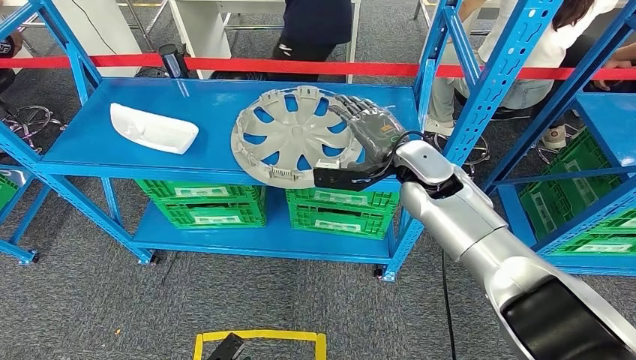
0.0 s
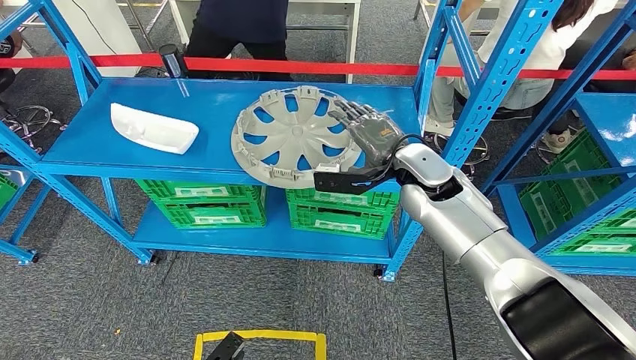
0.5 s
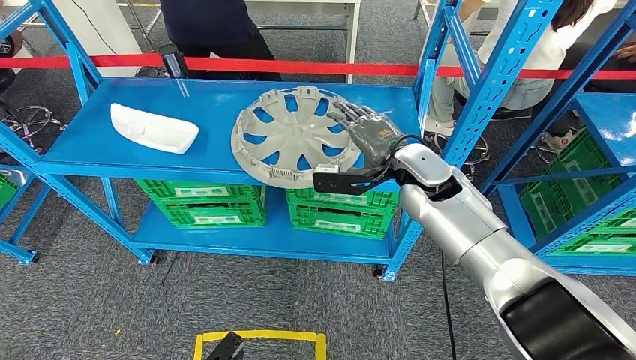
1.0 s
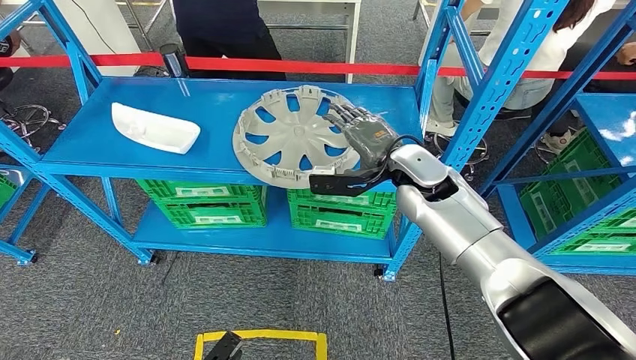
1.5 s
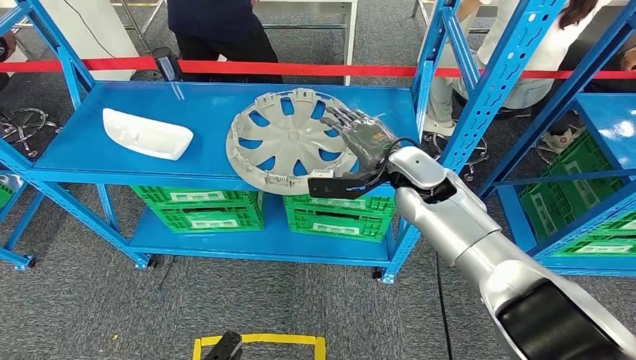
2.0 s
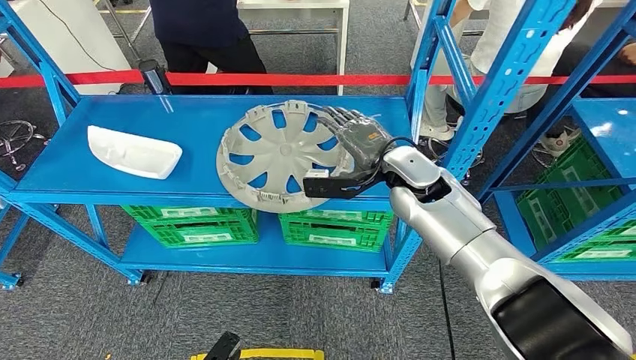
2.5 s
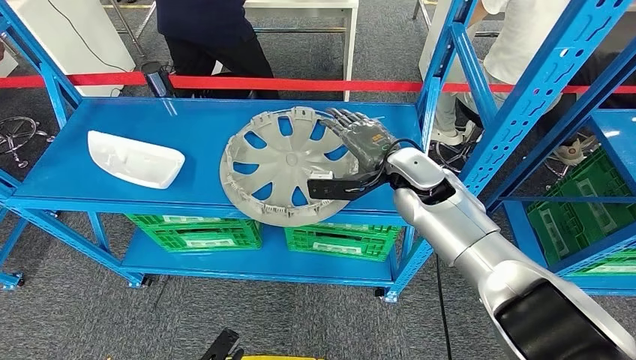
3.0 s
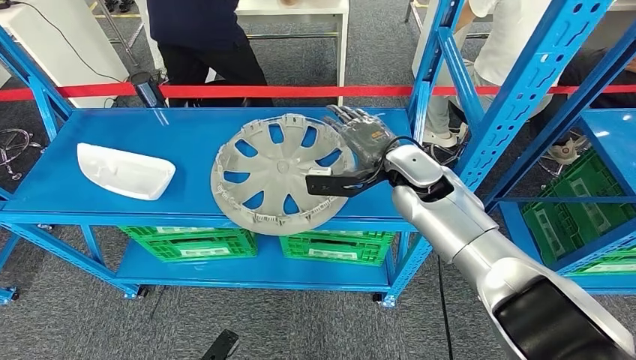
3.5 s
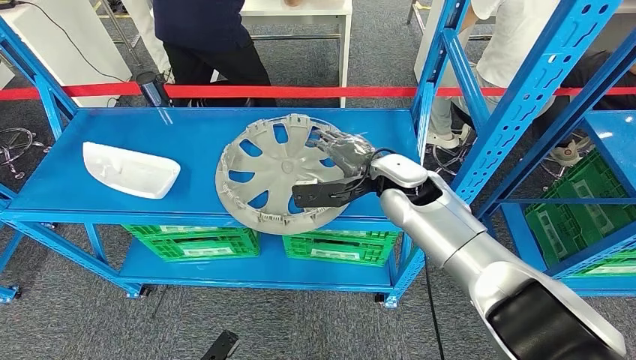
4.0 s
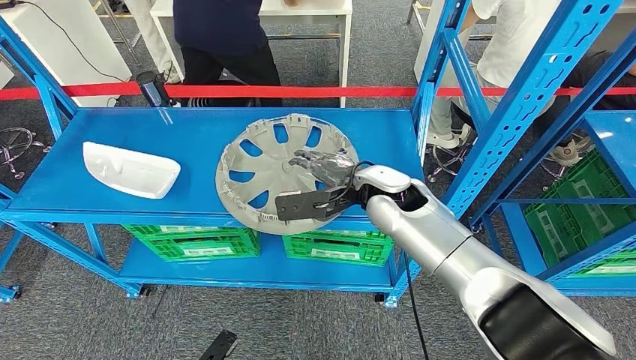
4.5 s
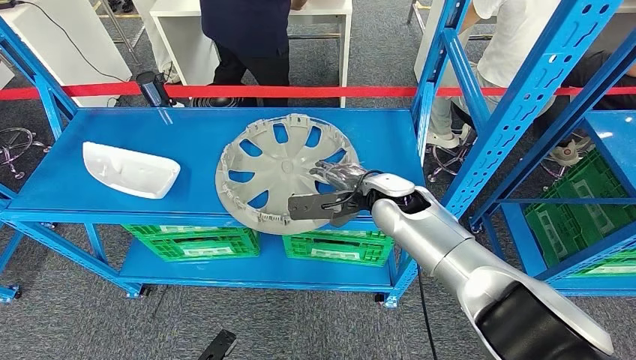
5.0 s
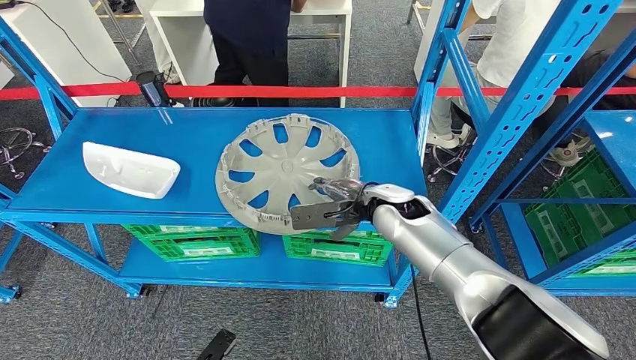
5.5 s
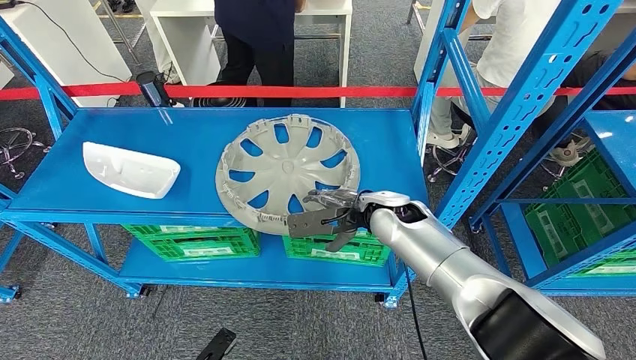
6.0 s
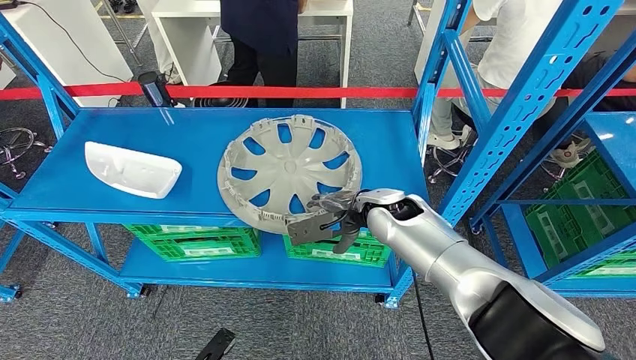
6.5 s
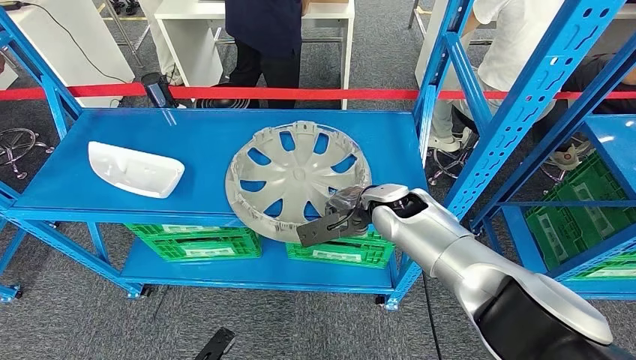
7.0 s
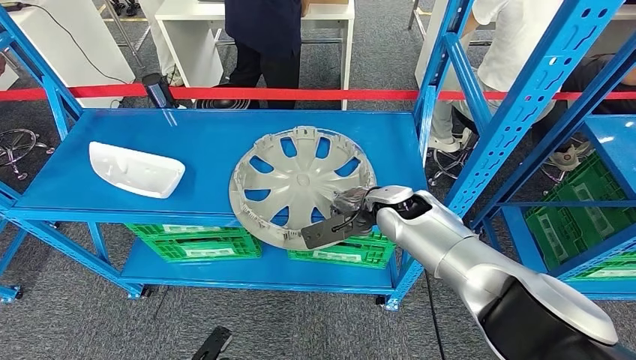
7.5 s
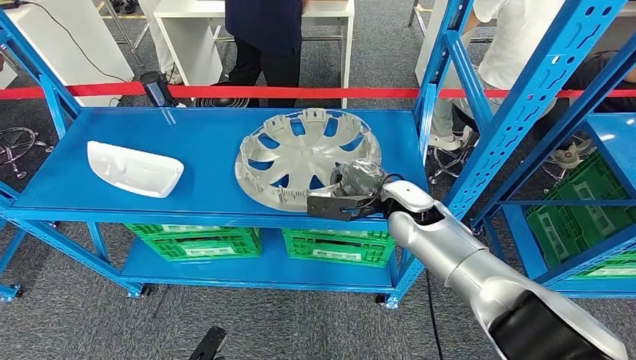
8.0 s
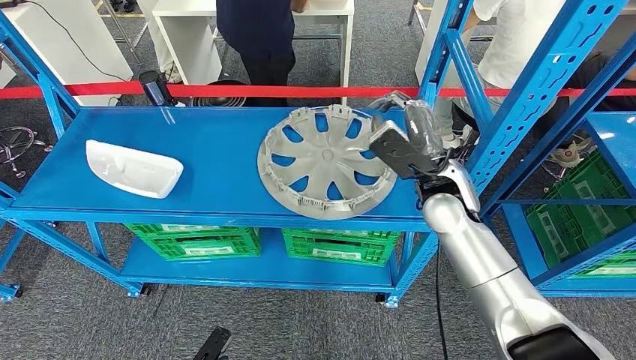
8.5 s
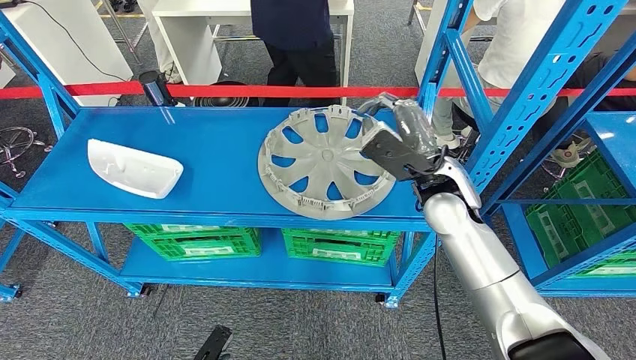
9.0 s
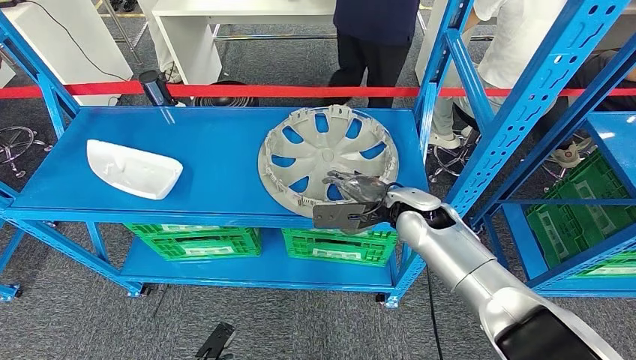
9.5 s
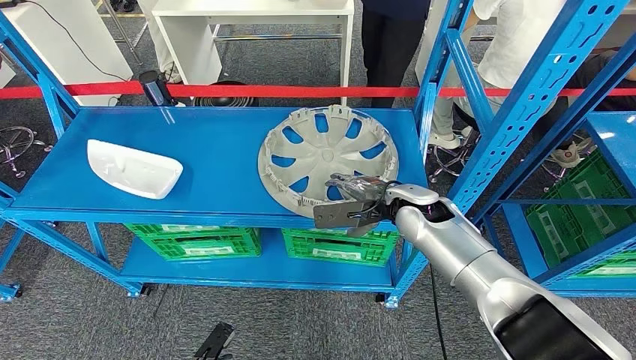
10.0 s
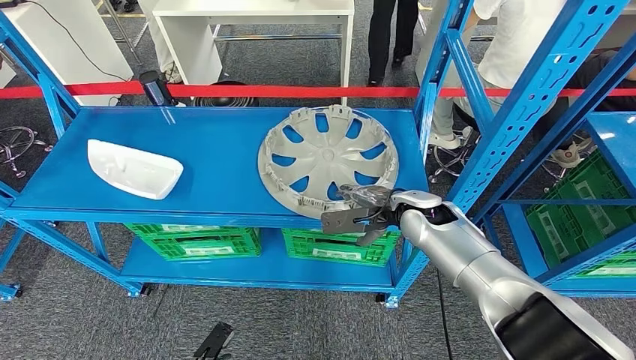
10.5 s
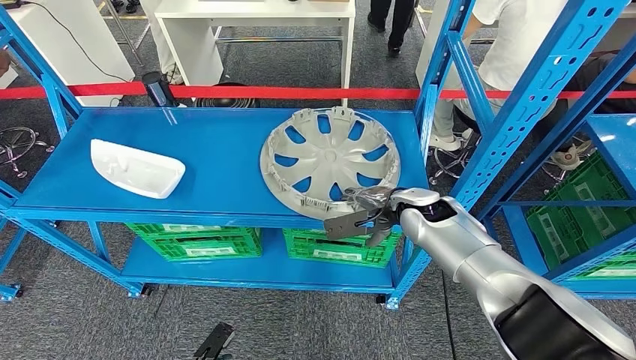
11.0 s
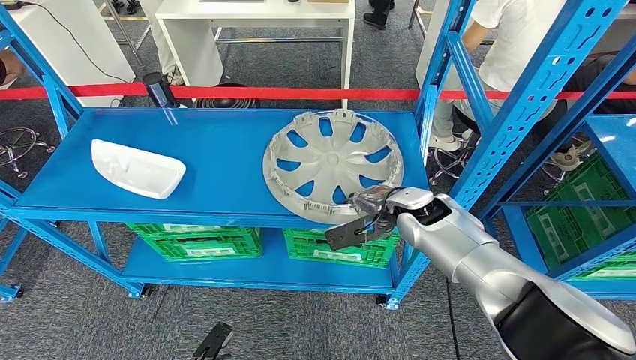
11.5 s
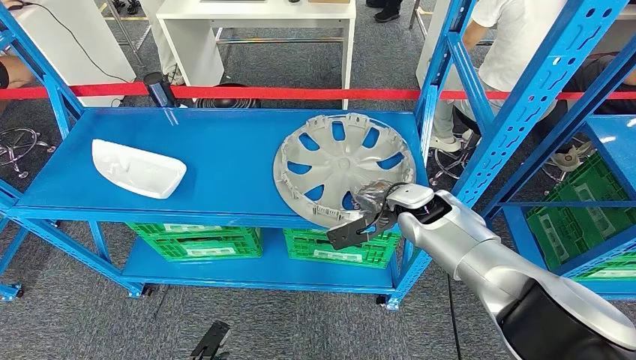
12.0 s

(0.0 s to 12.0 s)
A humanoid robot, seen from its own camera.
4.0 s - 6.0 s: The right hand heads downward, covering some 5 cm.

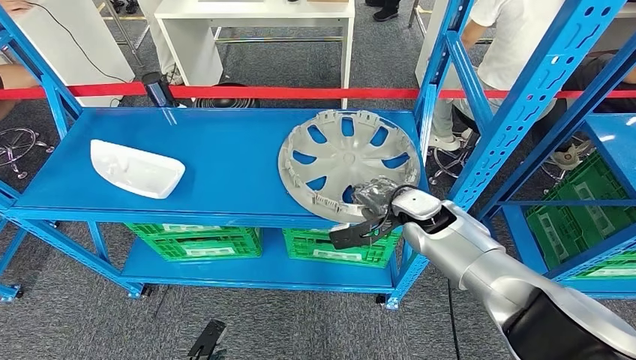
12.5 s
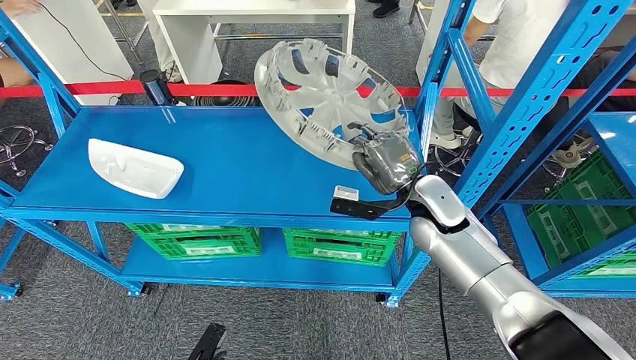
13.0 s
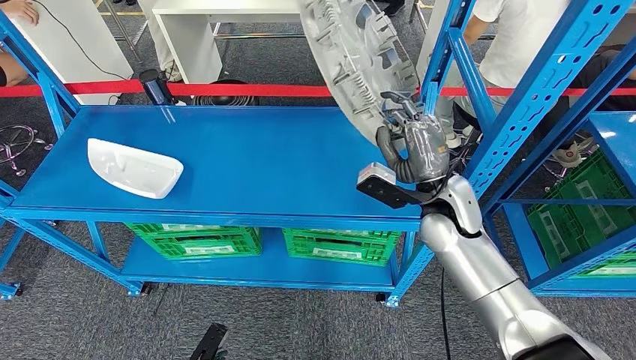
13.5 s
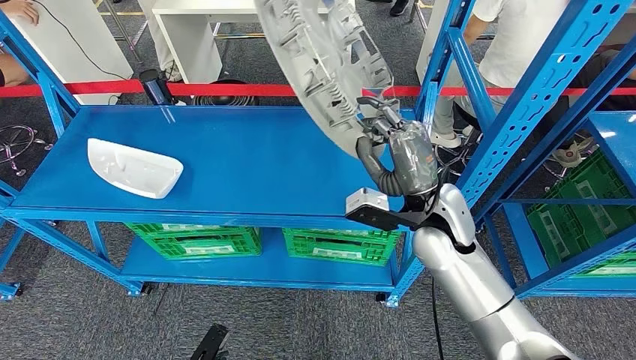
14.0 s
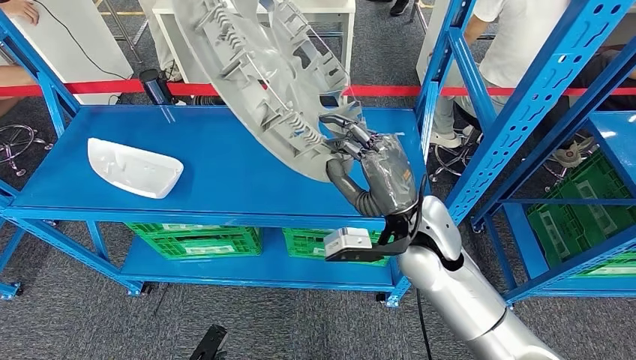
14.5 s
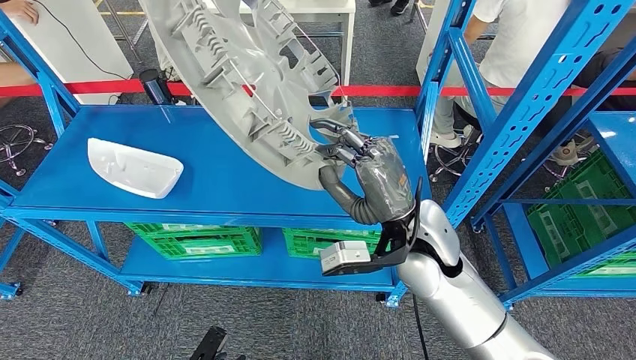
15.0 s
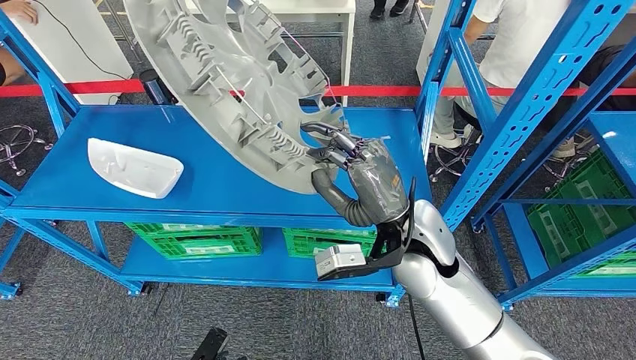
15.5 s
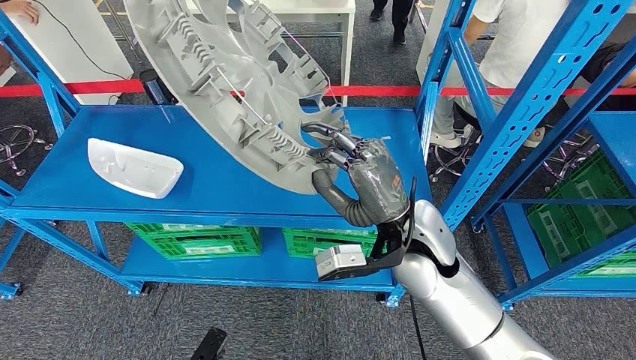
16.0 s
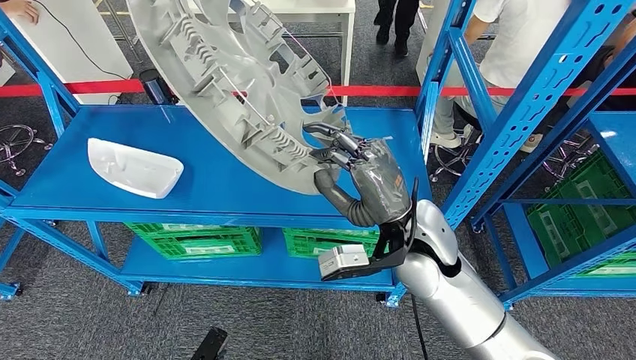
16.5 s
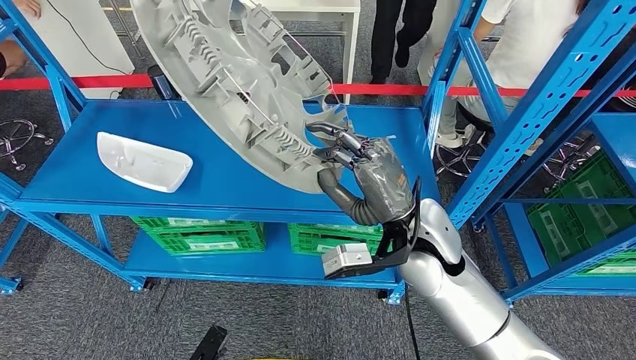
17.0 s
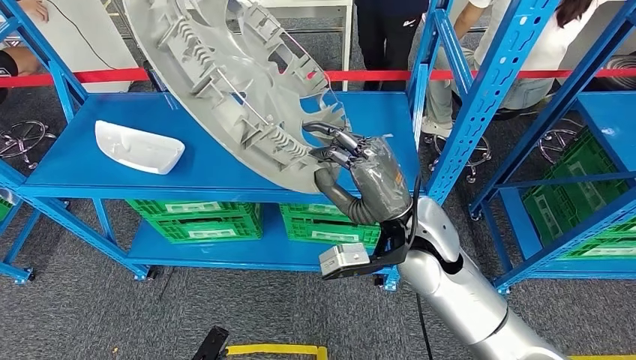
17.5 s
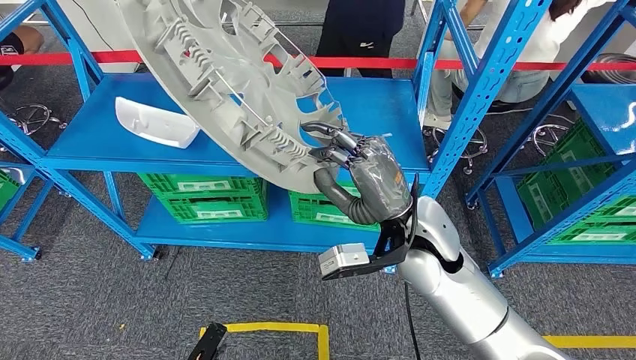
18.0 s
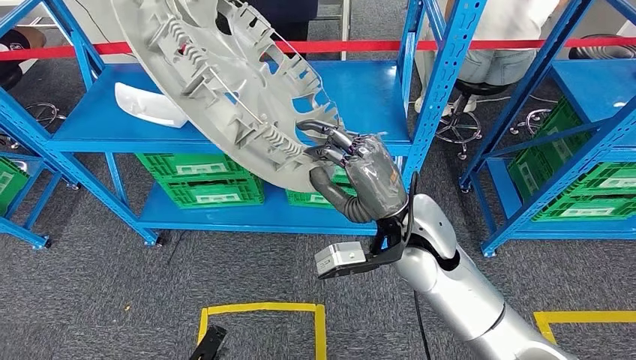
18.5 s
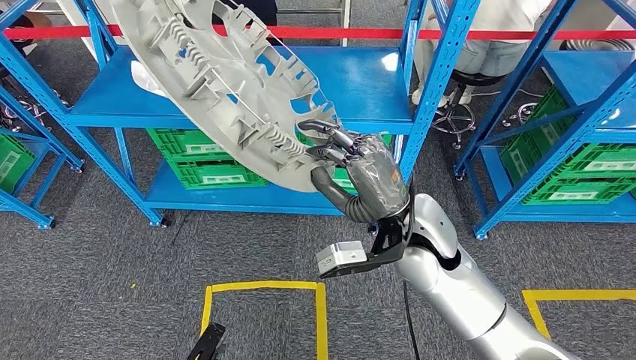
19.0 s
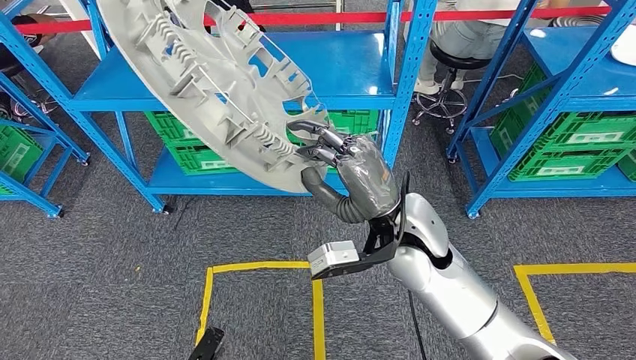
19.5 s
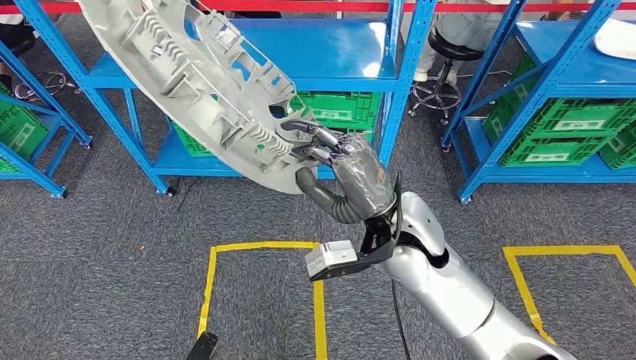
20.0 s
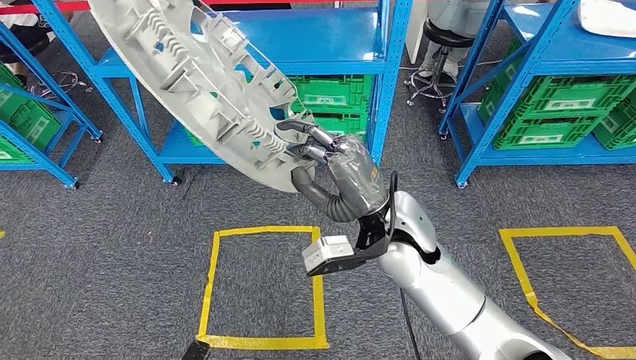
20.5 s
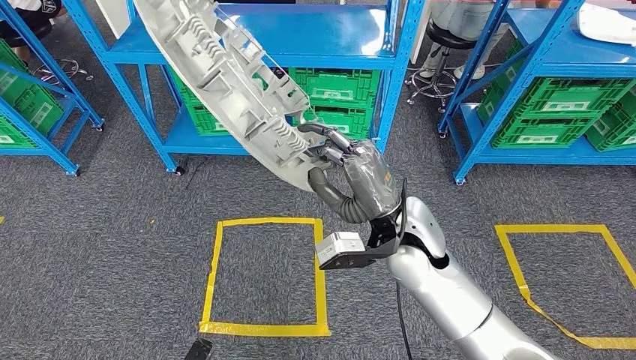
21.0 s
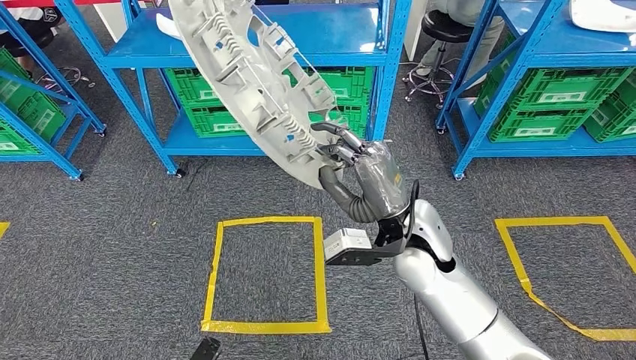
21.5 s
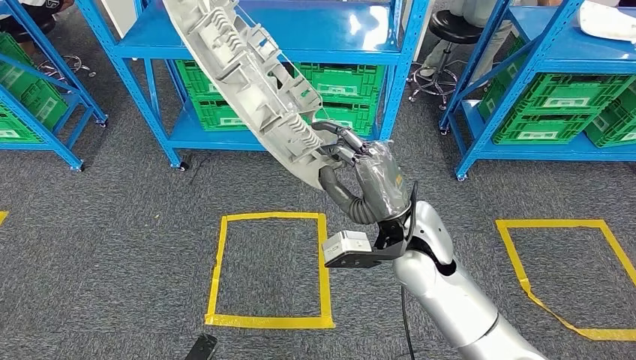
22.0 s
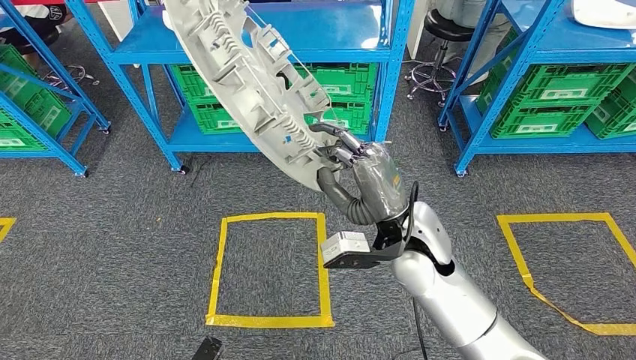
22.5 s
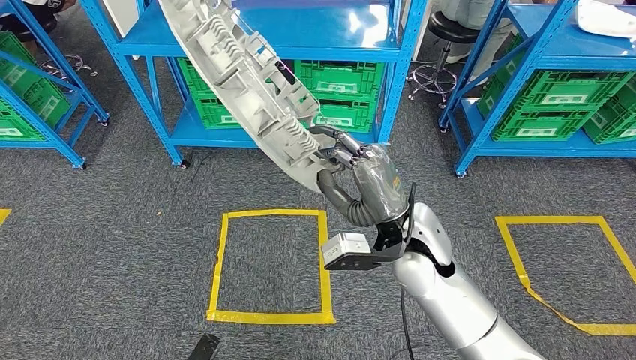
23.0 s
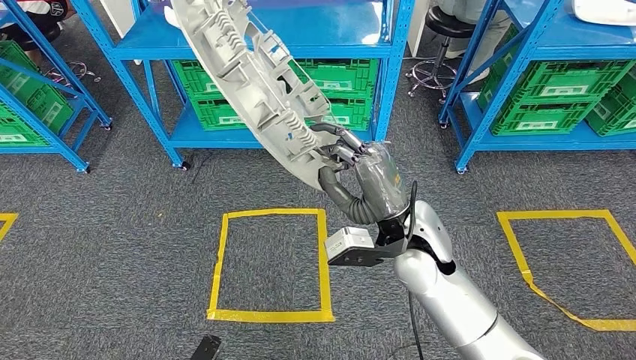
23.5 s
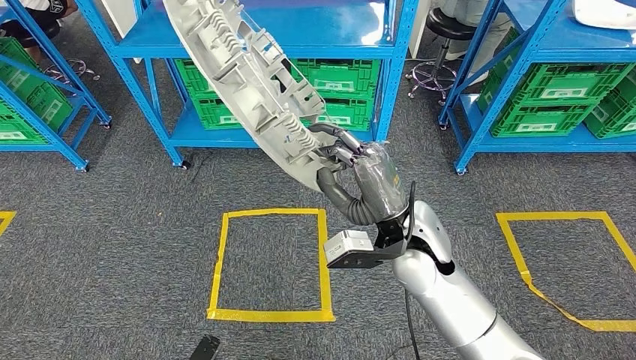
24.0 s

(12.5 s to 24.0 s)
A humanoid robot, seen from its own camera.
14.5 s - 16.5 s: The hands make only small movements.
22.0 s - 24.0 s: Both hands stay put.
